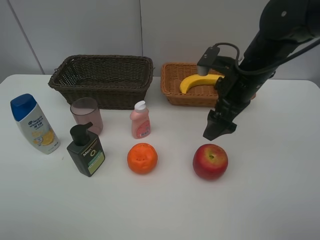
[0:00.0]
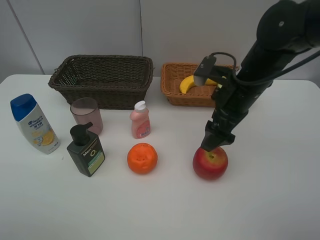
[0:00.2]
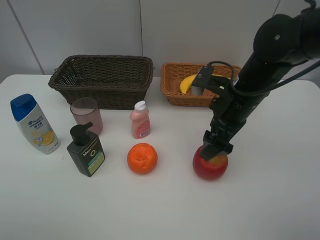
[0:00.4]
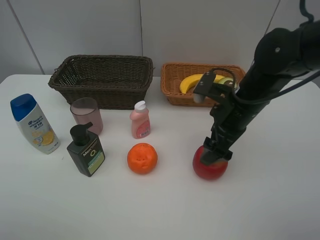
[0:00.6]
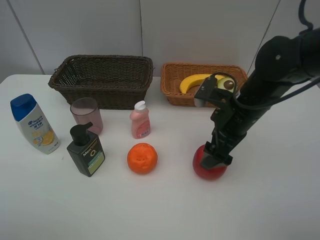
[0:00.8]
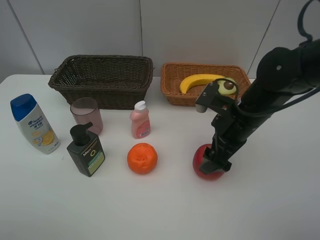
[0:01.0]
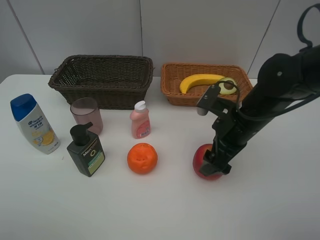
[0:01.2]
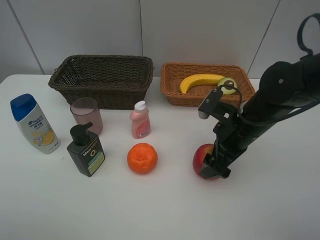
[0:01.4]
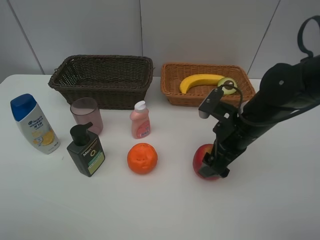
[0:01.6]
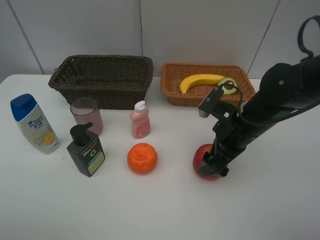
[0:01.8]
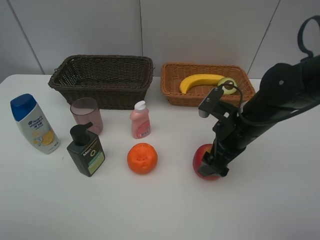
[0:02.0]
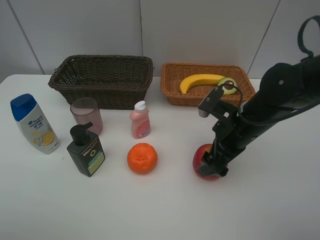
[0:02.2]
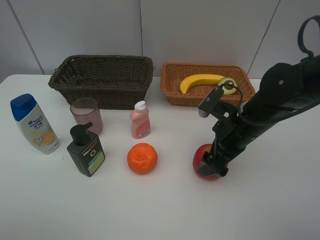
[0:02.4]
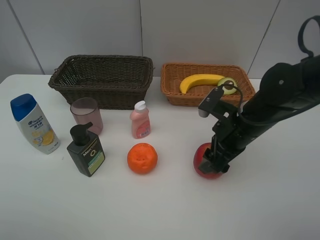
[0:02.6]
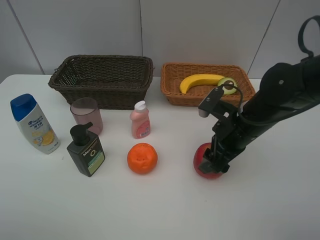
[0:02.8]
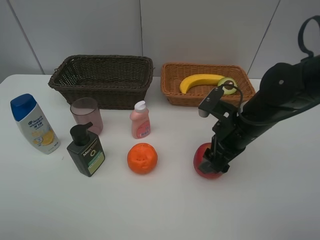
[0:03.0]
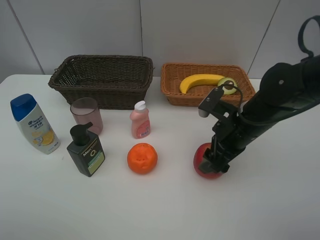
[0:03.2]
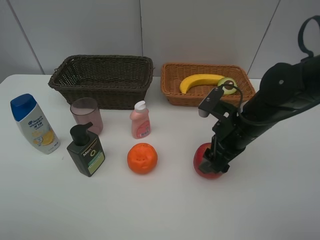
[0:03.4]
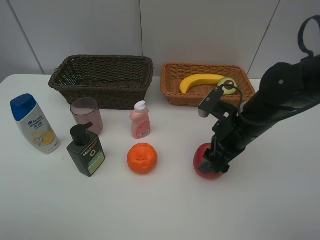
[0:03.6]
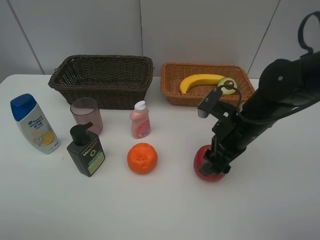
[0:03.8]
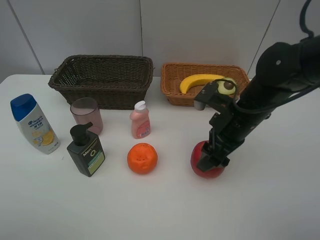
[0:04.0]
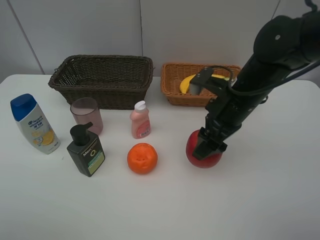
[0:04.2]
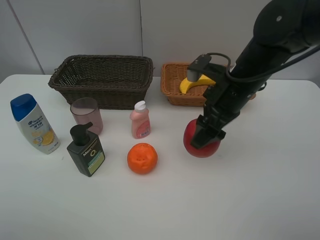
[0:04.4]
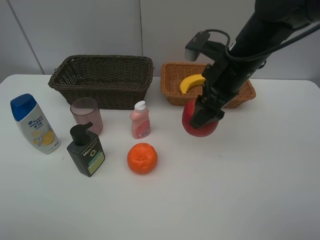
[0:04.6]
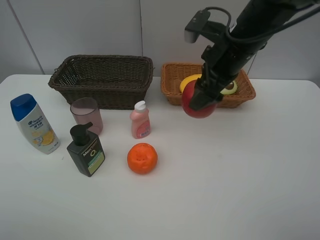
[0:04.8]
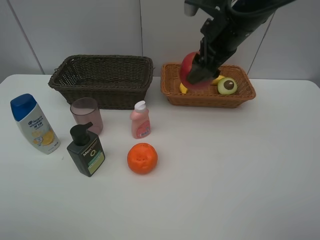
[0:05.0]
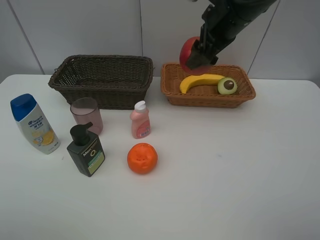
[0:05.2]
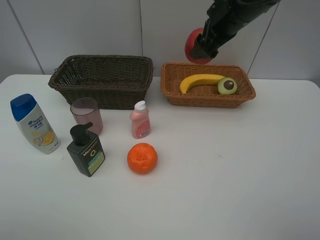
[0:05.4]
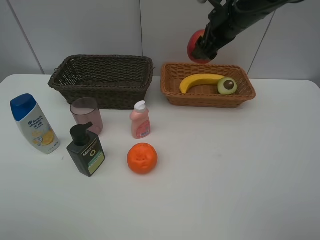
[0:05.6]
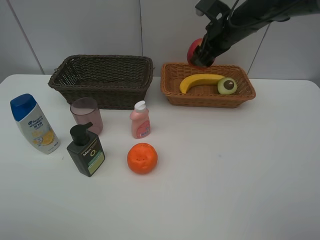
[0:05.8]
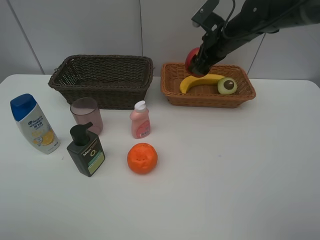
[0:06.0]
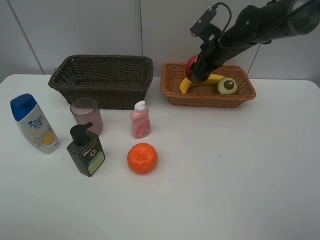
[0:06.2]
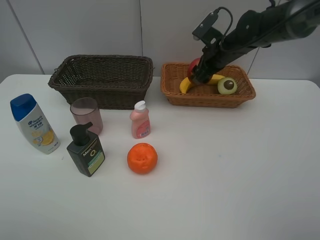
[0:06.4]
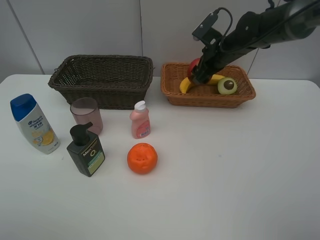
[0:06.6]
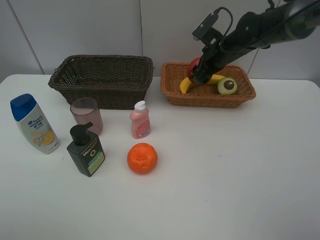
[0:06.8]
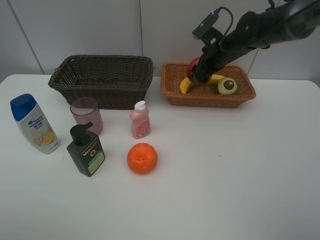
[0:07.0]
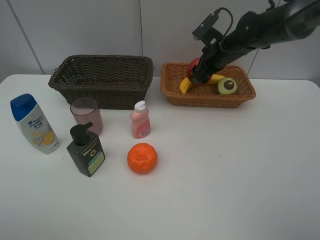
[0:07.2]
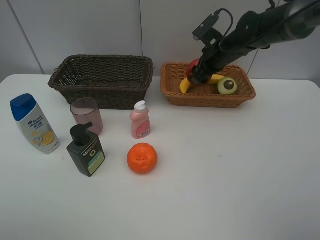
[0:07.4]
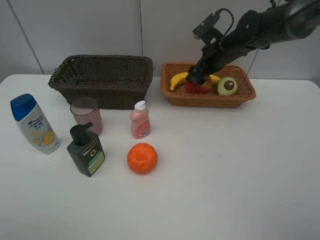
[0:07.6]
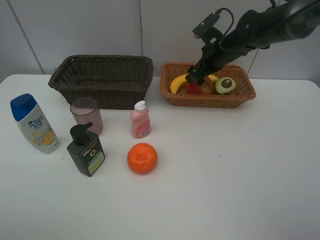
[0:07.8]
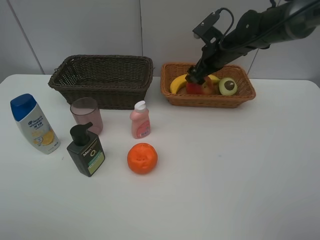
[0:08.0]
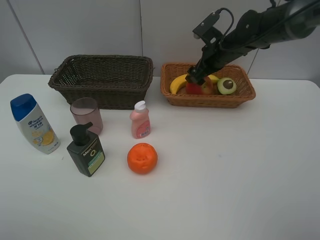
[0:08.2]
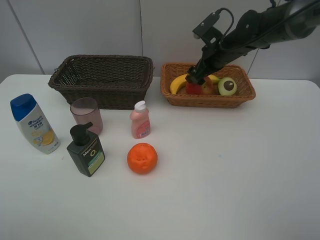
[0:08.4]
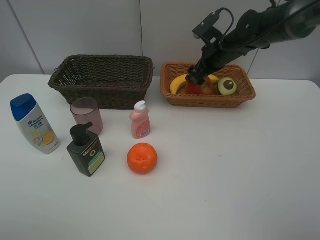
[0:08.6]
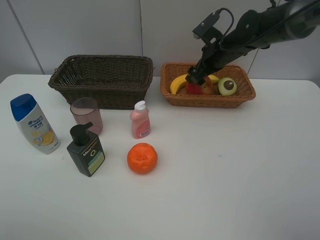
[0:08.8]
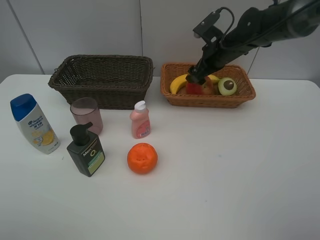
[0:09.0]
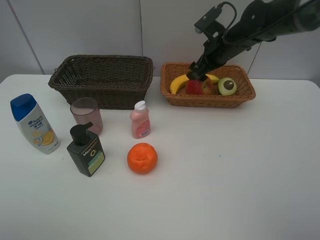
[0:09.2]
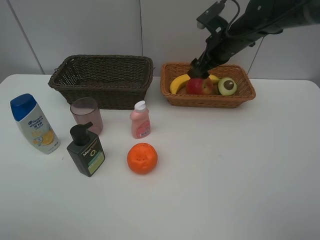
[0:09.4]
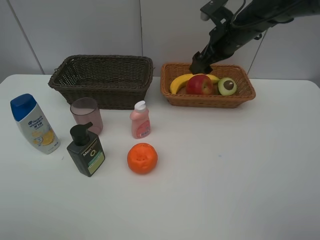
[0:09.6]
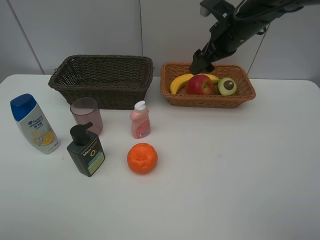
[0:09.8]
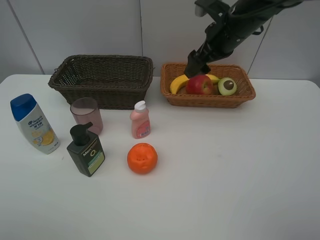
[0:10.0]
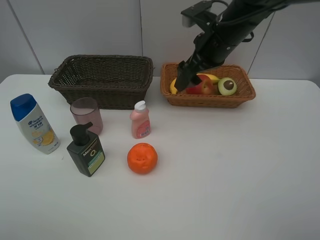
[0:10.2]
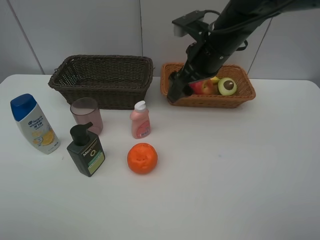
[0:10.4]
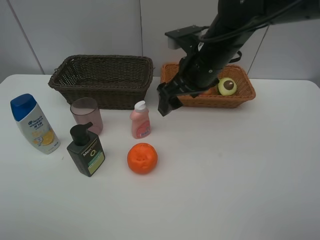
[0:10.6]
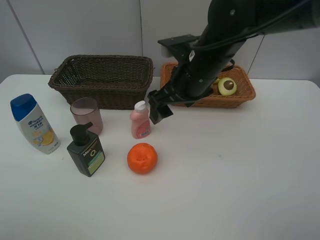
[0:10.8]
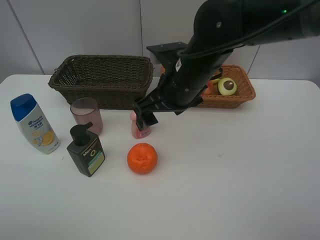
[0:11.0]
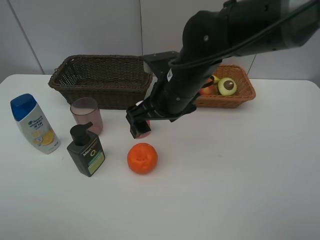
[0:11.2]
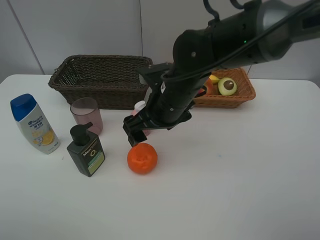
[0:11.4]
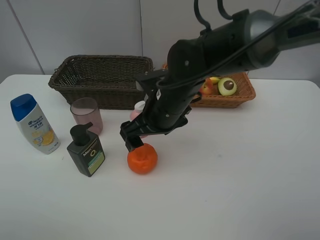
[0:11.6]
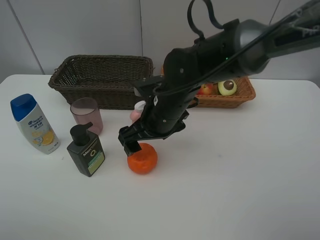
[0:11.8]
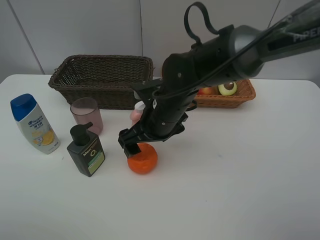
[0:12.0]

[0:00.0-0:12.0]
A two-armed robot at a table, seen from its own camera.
Task of the whole recording: Place multiple objects separately in different baskets.
Step, 0:00.0 to 0:04.0: Pick up the apple with right gripper.
Step, 0:04.2 to 0:09.4: Place the apple in the light basket with right gripper.
0:00.0 to 0:01.6: The right gripper heads downward, covering some 5 cm.
0:01.6 to 0:03.0: Neither gripper changes place.
0:03.0 to 0:04.4: The right gripper is displaced upward by roughly 5 cm.
0:04.4 to 0:06.0: The right gripper goes about 15 cm forward.
0:06.0 to 0:07.6: The grippers move only a little.
0:07.6 to 0:09.0: Both grippers stay put.
0:09.0 to 0:10.4: The right gripper heads backward, to the left and upward, covering about 15 cm.
0:10.4 to 0:12.0: The right gripper goes about 15 cm downward, to the left and backward.

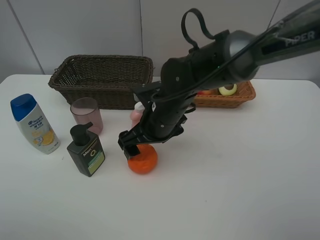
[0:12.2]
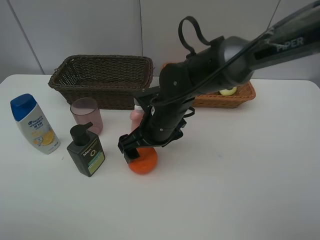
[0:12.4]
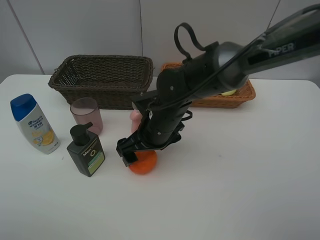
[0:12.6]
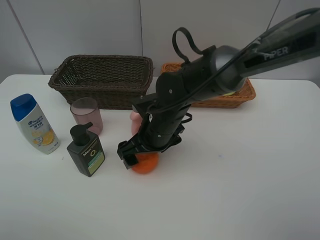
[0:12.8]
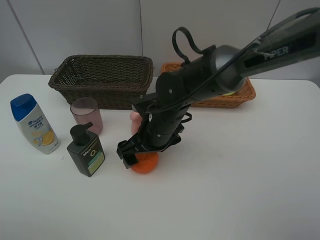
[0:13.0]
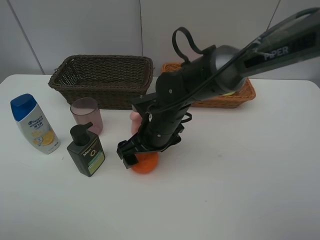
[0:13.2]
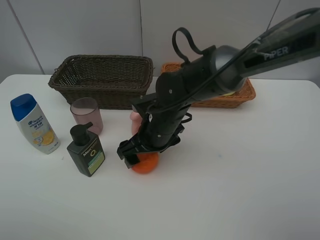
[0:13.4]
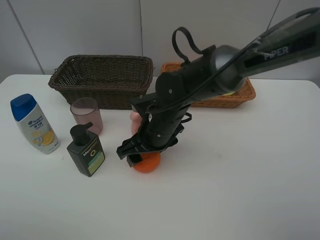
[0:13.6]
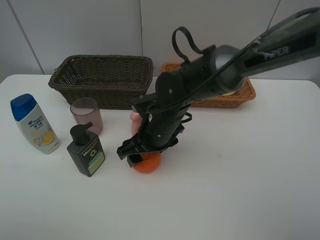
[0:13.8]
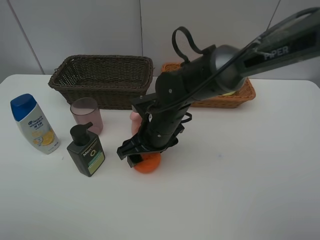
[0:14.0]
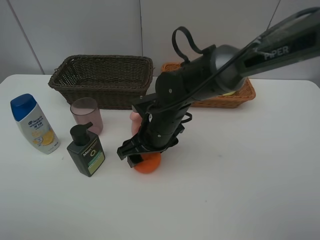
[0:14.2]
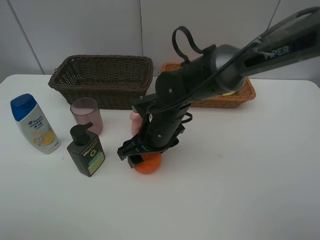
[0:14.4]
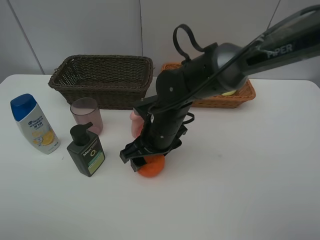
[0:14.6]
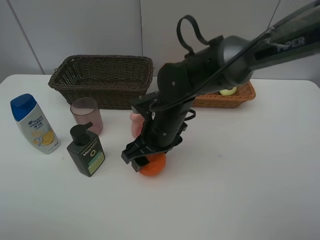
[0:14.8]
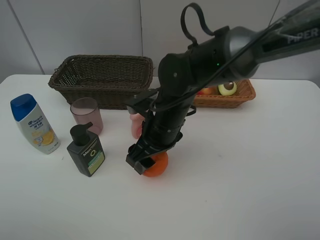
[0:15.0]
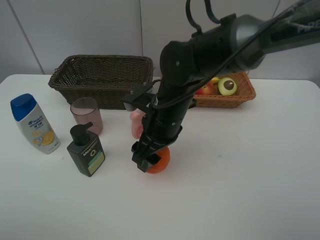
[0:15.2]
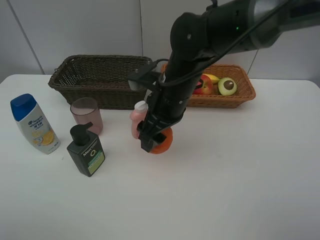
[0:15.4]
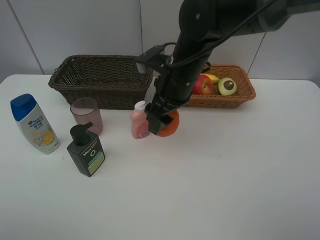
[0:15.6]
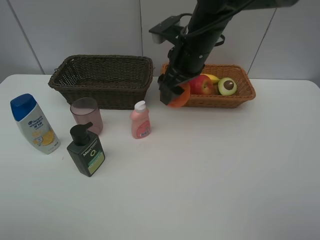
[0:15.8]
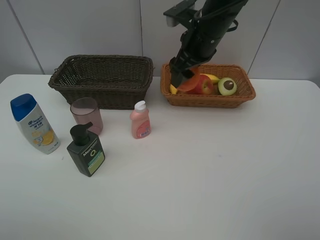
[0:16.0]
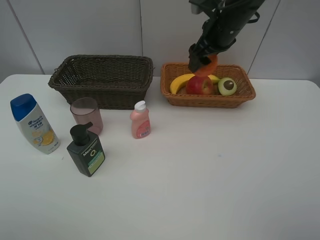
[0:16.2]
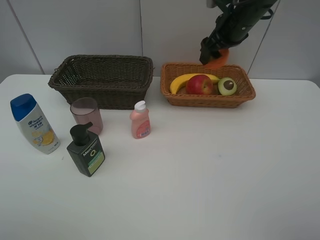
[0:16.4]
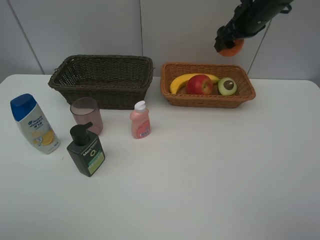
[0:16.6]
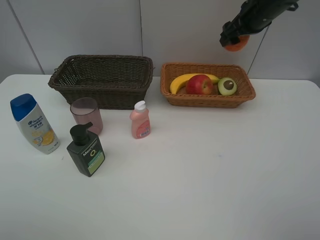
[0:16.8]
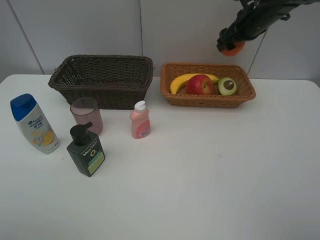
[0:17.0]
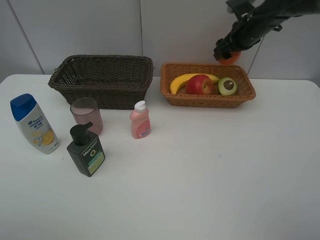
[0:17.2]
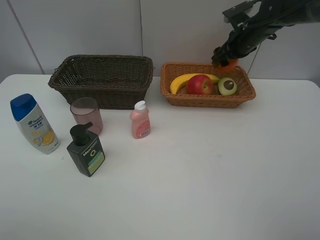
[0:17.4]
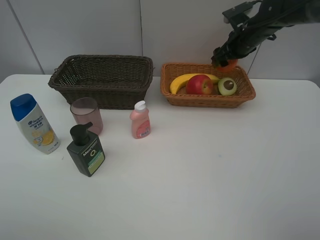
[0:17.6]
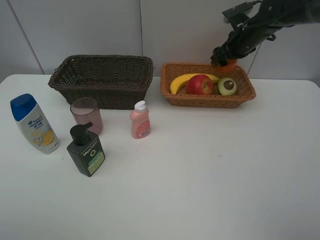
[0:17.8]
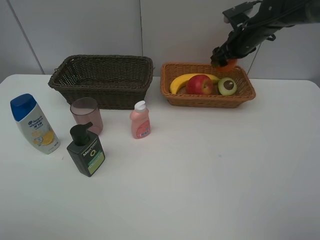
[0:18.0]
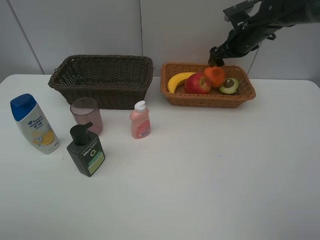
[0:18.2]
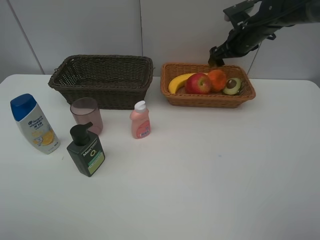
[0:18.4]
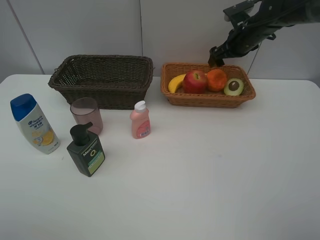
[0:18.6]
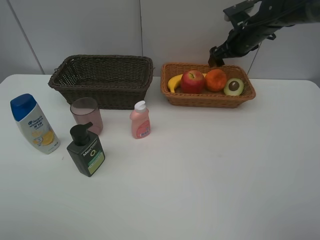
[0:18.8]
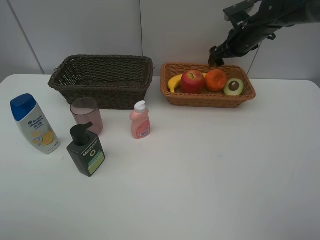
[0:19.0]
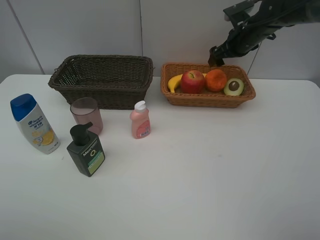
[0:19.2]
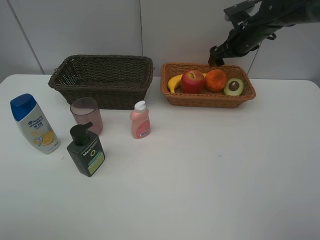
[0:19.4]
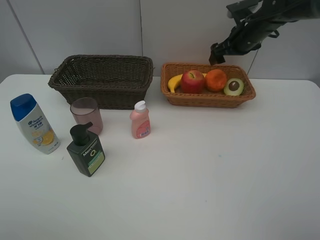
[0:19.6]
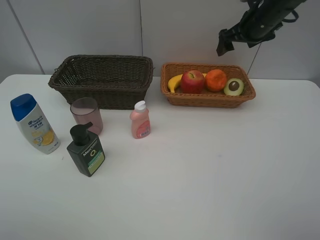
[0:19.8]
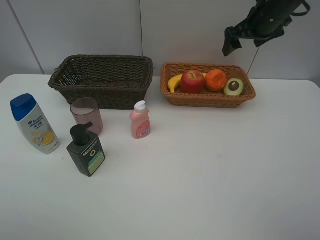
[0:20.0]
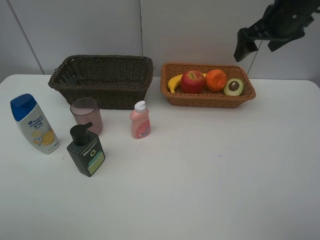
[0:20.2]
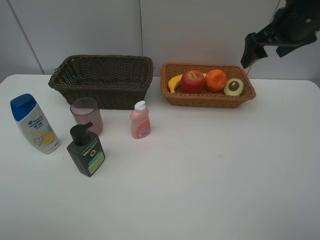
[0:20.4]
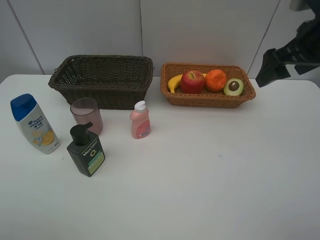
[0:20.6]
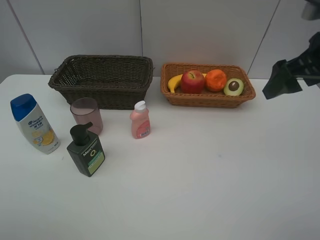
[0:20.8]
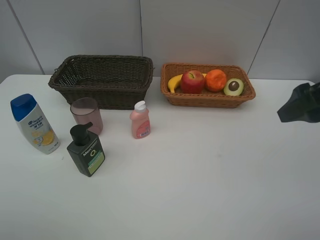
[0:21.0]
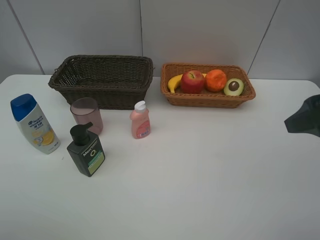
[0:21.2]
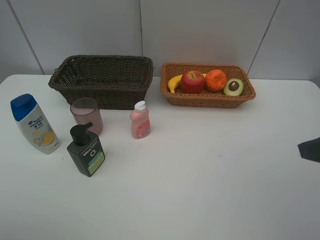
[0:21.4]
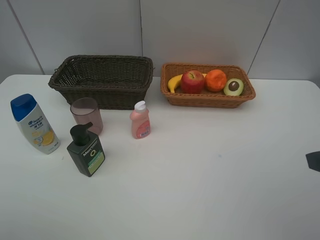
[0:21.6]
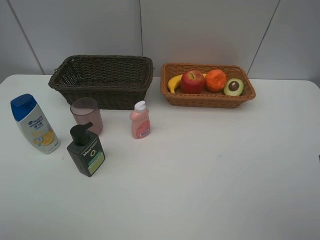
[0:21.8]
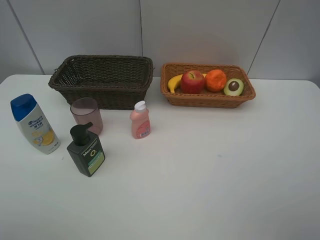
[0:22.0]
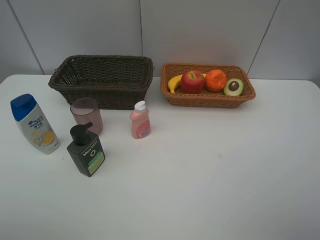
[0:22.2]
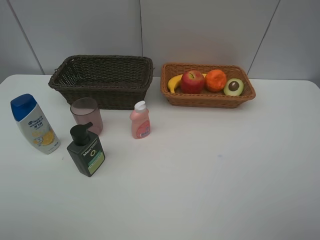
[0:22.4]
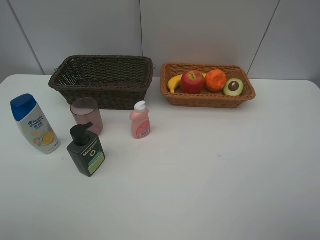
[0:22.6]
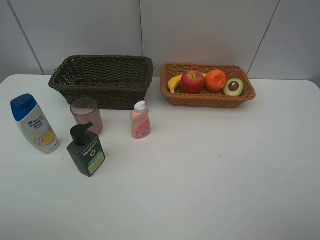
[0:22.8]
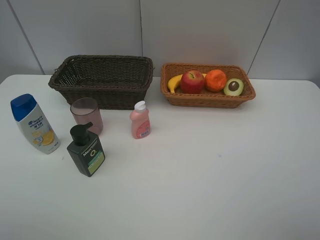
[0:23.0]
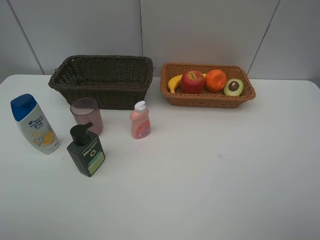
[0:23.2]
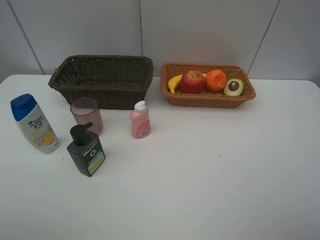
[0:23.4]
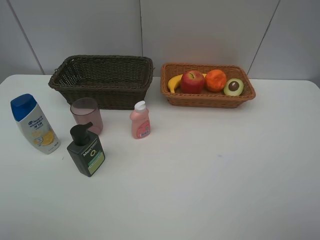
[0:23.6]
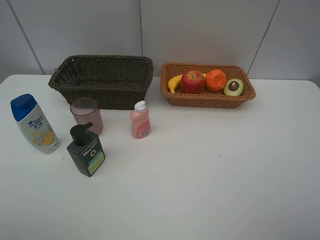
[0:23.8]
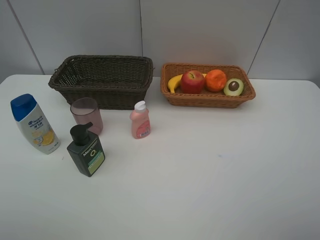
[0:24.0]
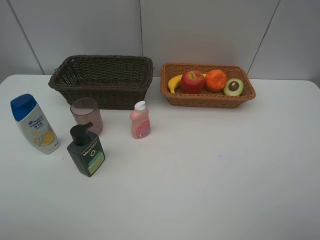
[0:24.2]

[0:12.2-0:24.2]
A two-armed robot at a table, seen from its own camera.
Task of the whole recording: Place multiple objects separately in different baskets.
Step, 0:12.2 to 0:15.0: Pick up the orange with right gripper.
Step, 0:15.2 to 0:18.4: Place the orange in the light basket with right gripper.
0:12.2 to 0:13.8: The right gripper closes its fingers.
0:15.2 to 0:16.6: The right gripper heads to the right, forward and upward, covering approximately 30 cm.
0:16.6 to 0:18.2: The right gripper is displaced downward by about 5 cm, and opens its fingers.
0:18.2 to 0:19.8: The right gripper travels upward by about 5 cm.
0:19.8 to 0:21.2: The right gripper heads backward, covering approximately 30 cm.
0:21.2 to 0:22.6: The right gripper goes approximately 15 cm backward.
0:22.6 to 0:24.2: Both grippers stay about where they are.
